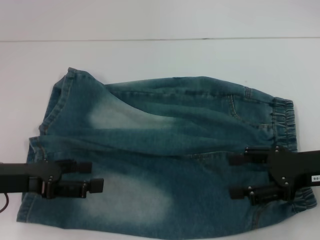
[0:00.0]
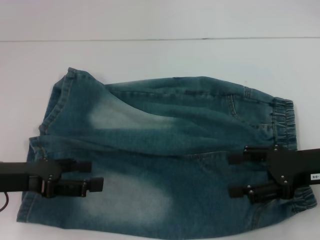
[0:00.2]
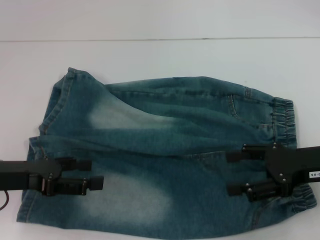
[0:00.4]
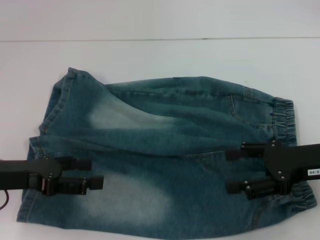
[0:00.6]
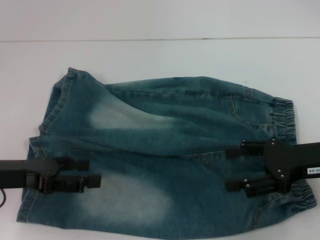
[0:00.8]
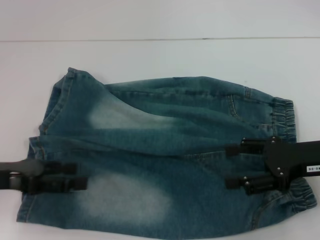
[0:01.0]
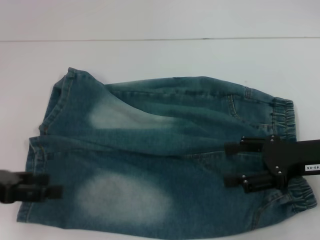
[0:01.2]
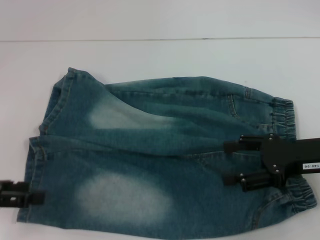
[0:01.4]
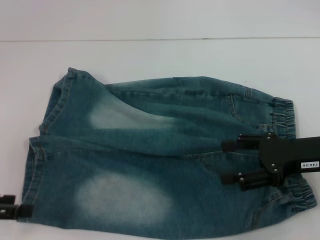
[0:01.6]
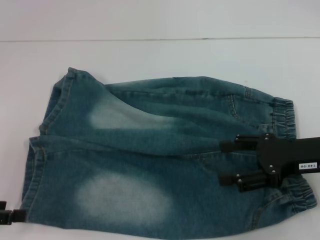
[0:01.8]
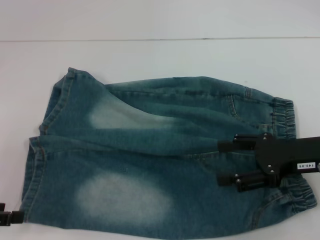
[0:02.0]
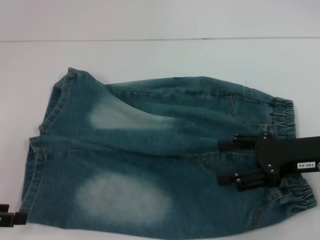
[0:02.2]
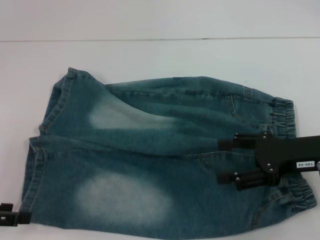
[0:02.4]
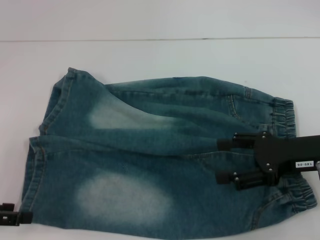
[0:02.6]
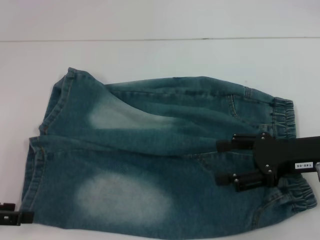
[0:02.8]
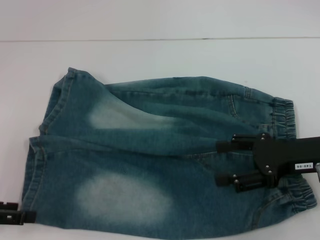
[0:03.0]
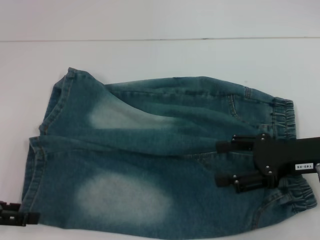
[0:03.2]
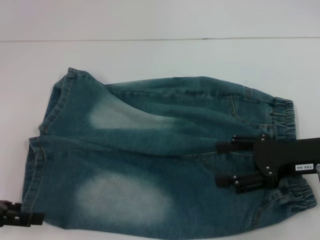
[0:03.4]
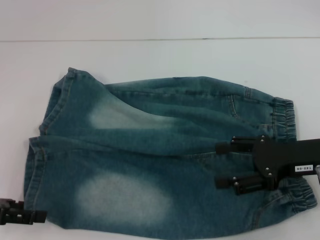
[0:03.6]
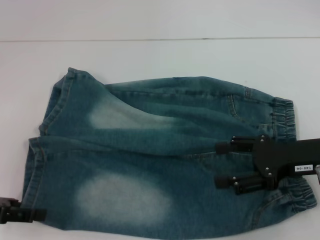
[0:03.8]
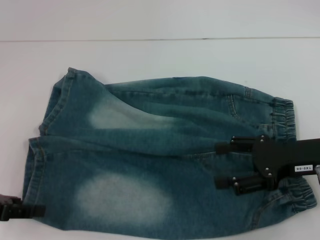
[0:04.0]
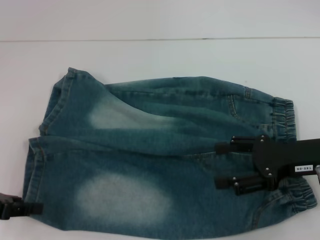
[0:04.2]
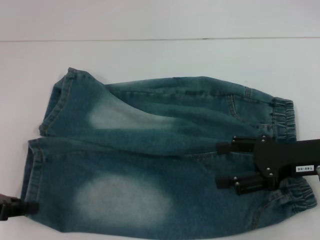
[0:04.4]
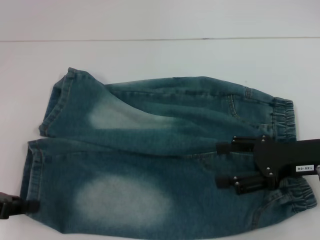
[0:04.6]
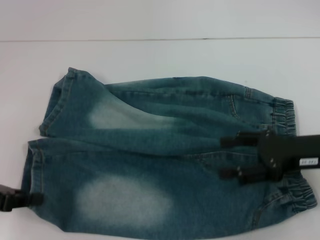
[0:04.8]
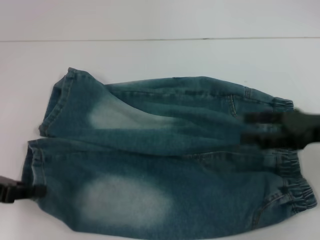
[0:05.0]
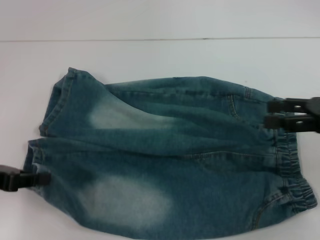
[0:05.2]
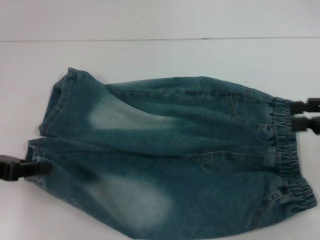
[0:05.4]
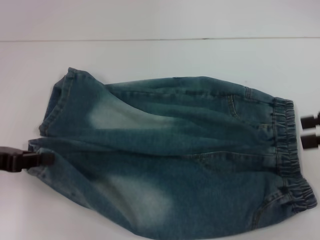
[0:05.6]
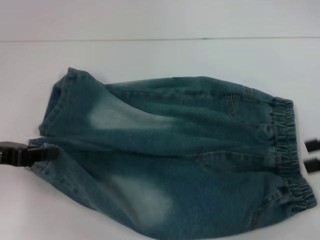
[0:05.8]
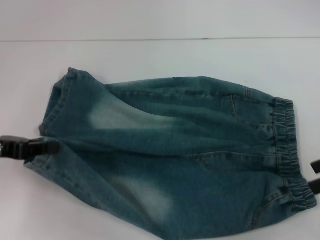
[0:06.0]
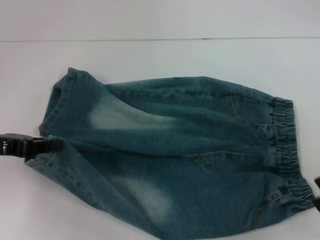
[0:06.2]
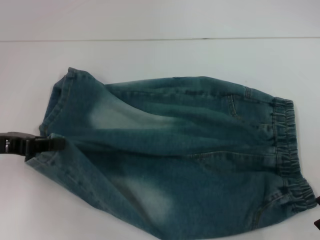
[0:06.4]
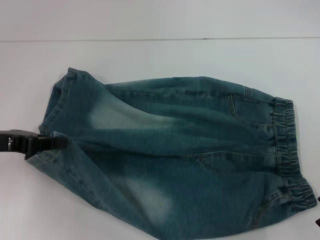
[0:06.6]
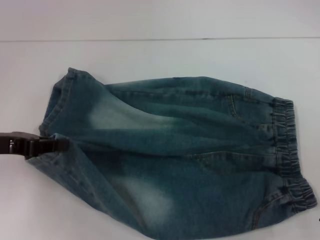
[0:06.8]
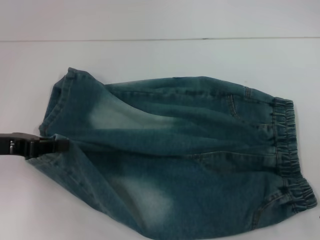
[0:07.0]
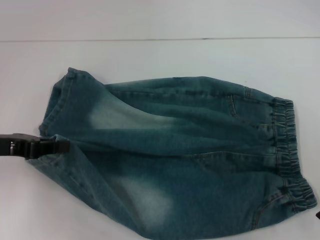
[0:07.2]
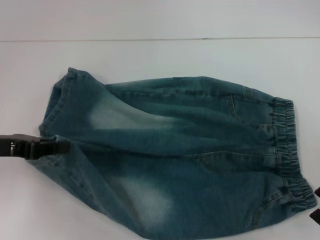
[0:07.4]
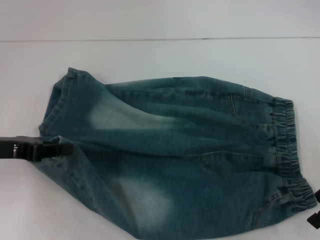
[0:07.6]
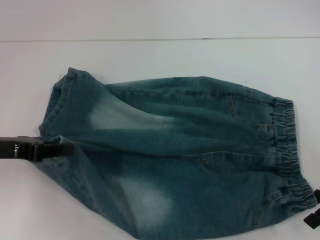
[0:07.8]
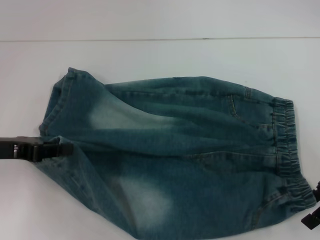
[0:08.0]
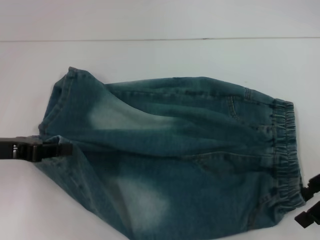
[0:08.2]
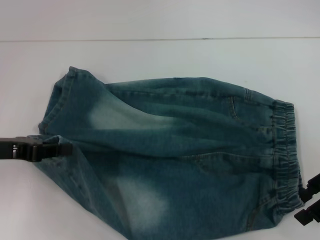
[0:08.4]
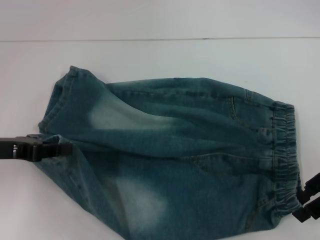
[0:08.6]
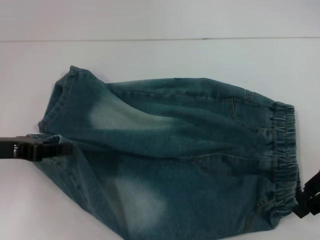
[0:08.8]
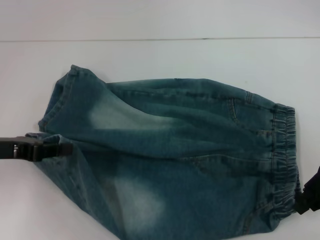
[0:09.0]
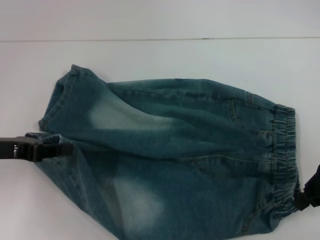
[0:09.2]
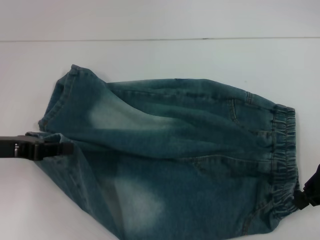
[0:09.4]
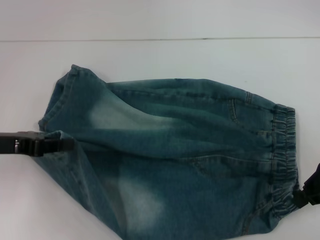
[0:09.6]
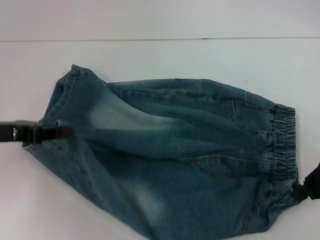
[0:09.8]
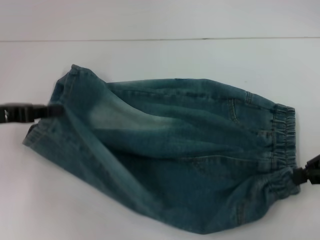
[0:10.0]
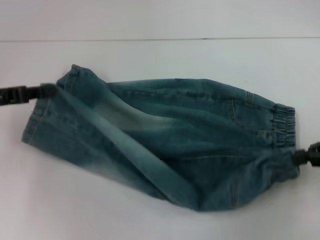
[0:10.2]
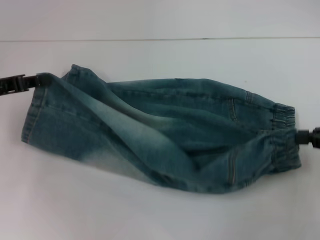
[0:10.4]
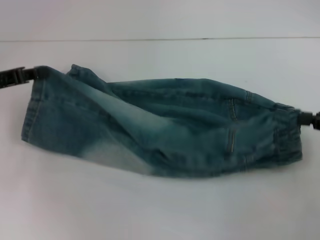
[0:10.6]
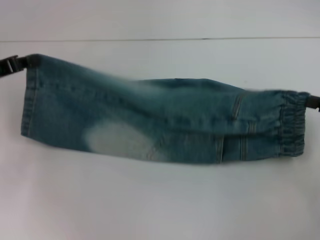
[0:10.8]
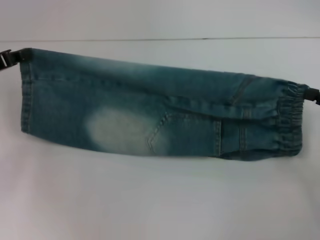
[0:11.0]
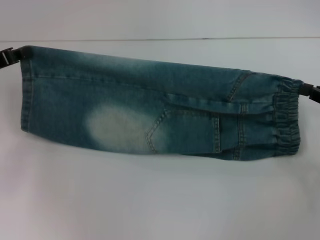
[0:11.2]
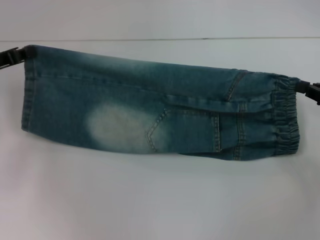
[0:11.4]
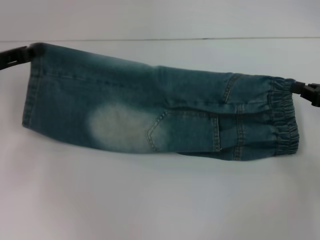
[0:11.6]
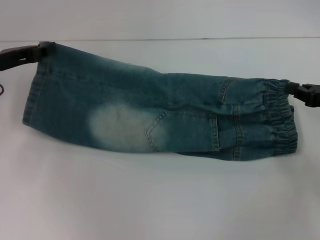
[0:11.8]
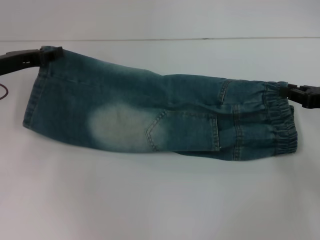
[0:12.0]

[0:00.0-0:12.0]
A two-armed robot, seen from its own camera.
Step, 0:00.0 to 0:04.4: Grab the lower left pant leg with your left hand.
Step, 0:04.8 to 0:09.4: Hold the lower right waistband with your right hand.
0:00.0 to 0:01.6: The left gripper travels to the left by approximately 10 cm.
0:01.6 to 0:03.0: The grippers move only a little.
0:03.0 to 0:04.4: The left gripper closes its fingers.
0:04.4 to 0:06.0: The left gripper changes place by some 5 cm; the right gripper moves to the right and upward, about 10 cm.
0:06.0 to 0:07.6: The right gripper ends up about 5 cm from where it was.
0:07.6 to 0:09.0: The right gripper closes its fingers.
0:09.0 to 0:10.4: The right gripper heads to the right, covering some 5 cm, while the left gripper ends up about 5 cm from where it was.
0:10.4 to 0:12.0: Both grippers move forward, roughly 5 cm.

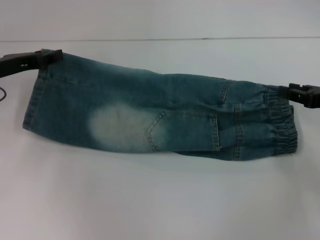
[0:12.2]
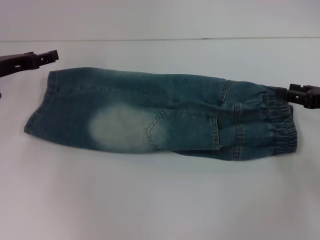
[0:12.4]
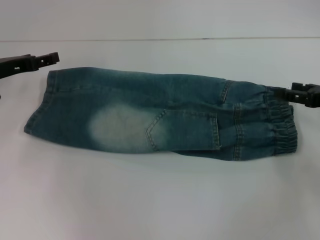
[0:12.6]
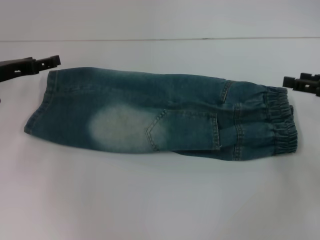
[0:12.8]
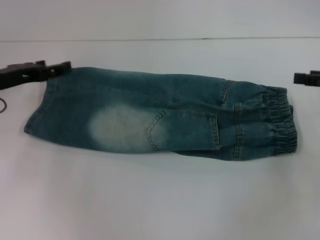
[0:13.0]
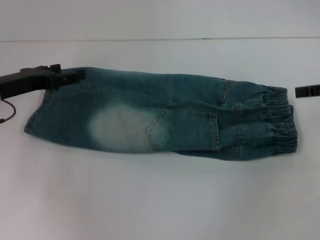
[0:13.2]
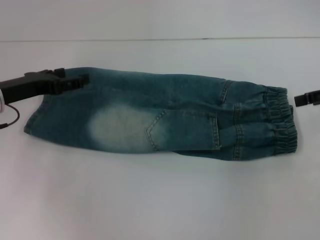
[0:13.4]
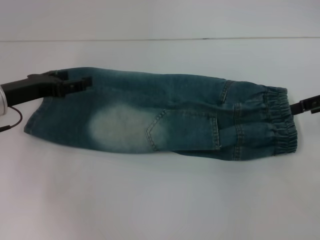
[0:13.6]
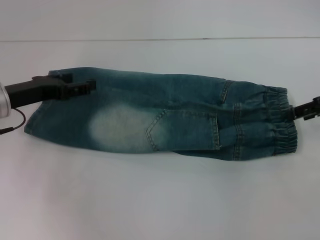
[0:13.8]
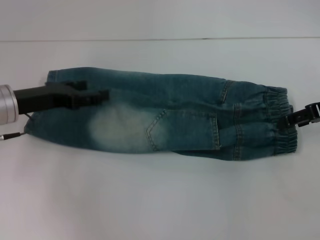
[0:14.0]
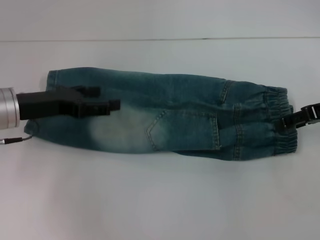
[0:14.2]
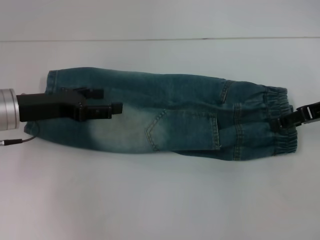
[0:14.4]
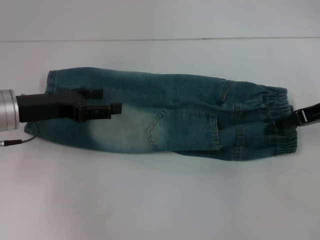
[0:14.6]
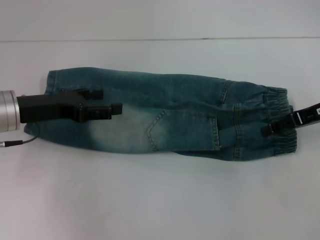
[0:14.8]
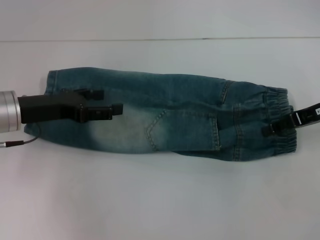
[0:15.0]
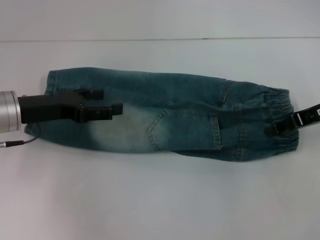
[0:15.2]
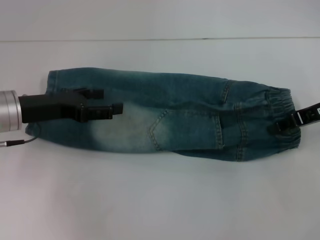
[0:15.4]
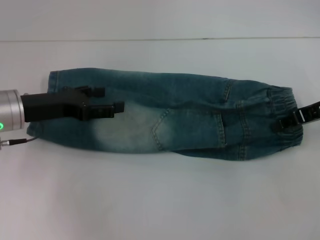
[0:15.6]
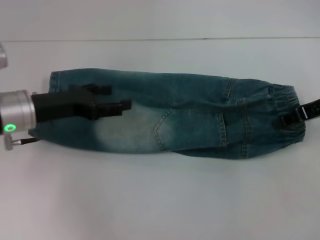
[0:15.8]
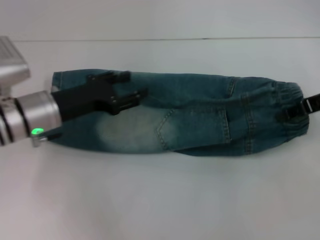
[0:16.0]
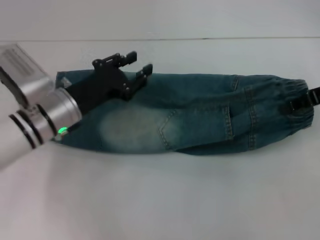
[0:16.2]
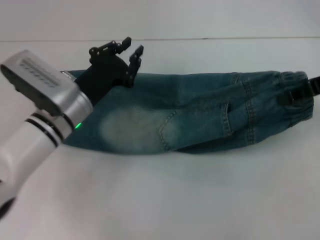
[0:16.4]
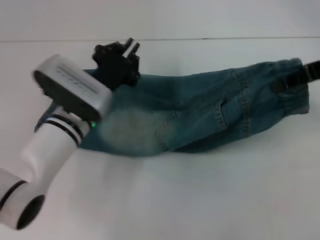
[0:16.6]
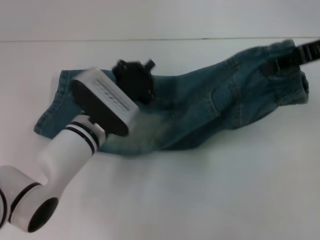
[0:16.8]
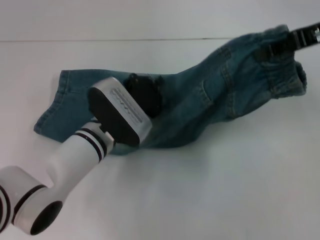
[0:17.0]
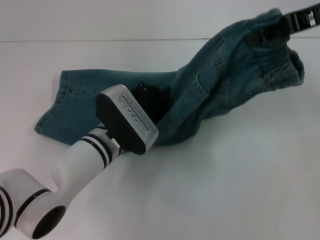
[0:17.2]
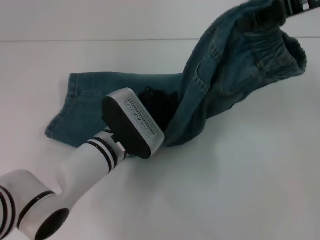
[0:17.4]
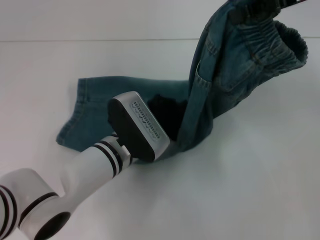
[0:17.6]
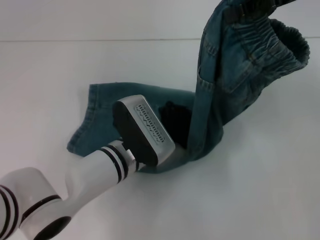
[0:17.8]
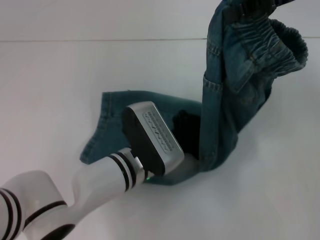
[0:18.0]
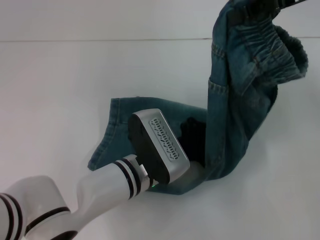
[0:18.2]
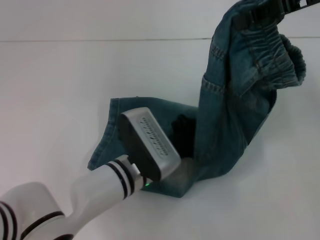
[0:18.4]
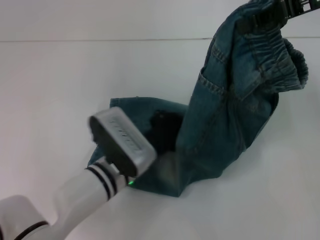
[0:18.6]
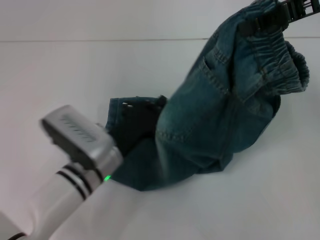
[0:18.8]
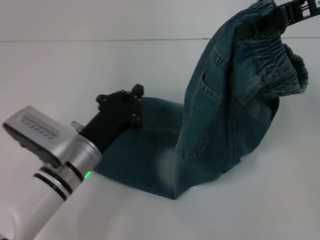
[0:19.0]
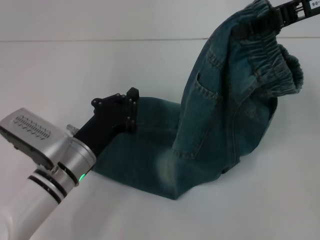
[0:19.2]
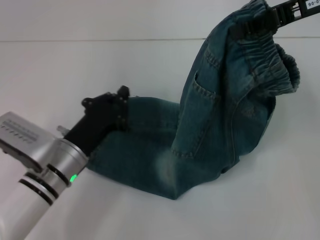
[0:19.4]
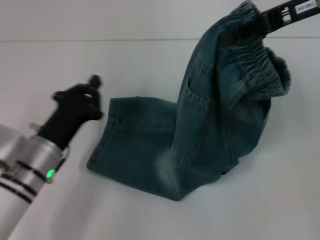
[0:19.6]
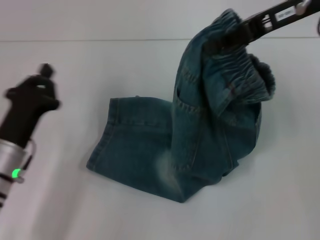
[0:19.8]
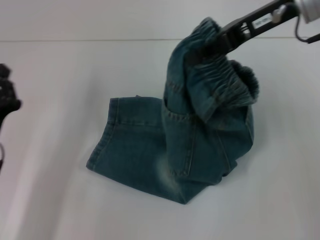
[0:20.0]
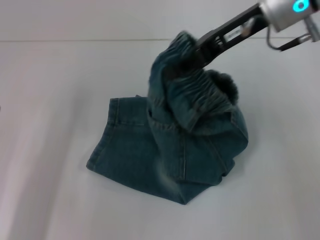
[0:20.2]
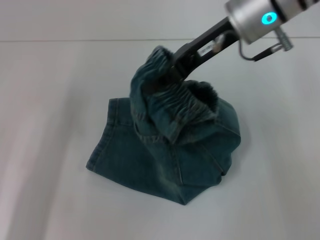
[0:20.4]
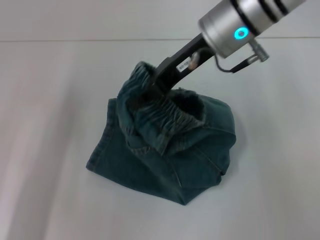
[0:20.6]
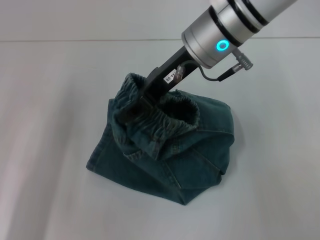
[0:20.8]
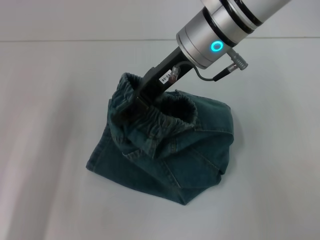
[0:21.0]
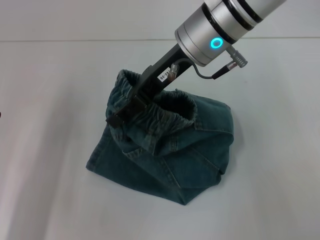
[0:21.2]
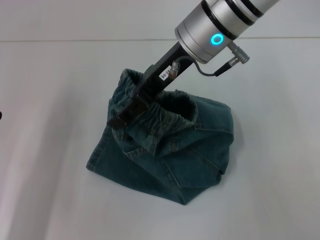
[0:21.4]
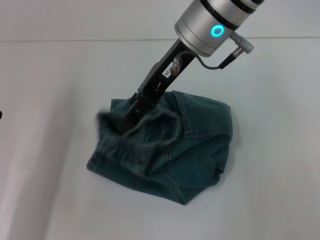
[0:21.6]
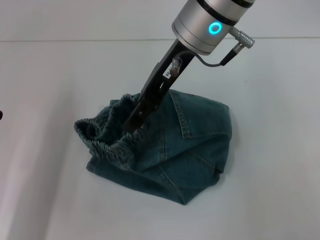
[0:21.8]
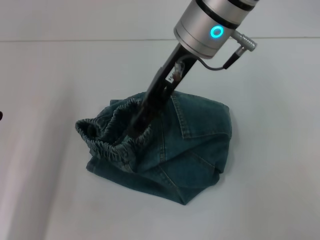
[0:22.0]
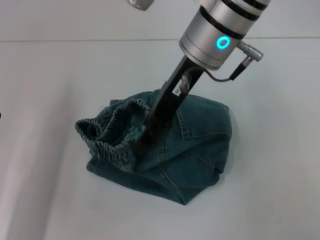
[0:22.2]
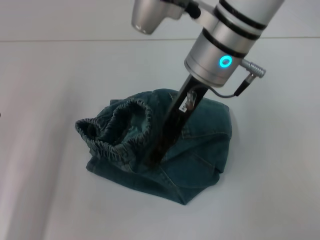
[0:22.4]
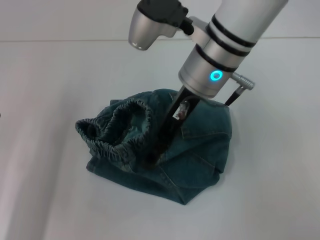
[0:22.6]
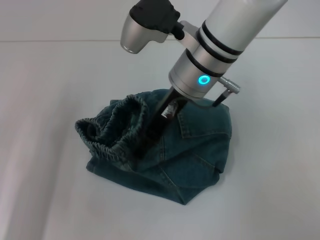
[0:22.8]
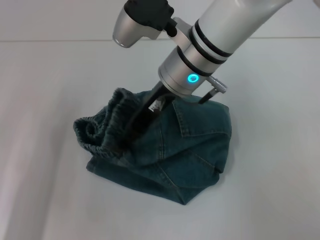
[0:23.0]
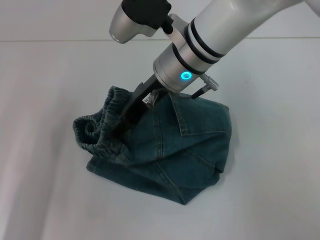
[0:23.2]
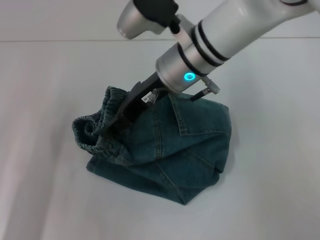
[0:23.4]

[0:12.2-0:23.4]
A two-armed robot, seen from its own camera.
Step, 0:12.4 to 0:15.6: Grab the waistband with your right hand.
Step, 0:15.8 to 0:18.0: Press the middle of the pants with your left hand.
Step, 0:18.4 to 0:23.4: Fold to the left with your right hand.
0:12.2 to 0:13.8: The left gripper opens its fingers, while the right gripper heads upward, covering roughly 10 cm, and opens.
0:13.8 to 0:15.4: The right gripper closes.
0:15.4 to 0:17.0: The left gripper shifts about 15 cm to the right and downward, and closes its fingers; the right gripper is displaced upward by some 10 cm.
0:17.0 to 0:18.6: The left gripper ends up about 5 cm from where it was.
0:18.6 to 0:20.2: The right gripper is displaced to the left by some 10 cm. The left gripper moves to the left, approximately 20 cm.
0:20.2 to 0:21.8: The right gripper heads to the left, covering about 10 cm, and opens.
0:21.8 to 0:23.4: The right gripper travels downward by roughly 10 cm.
